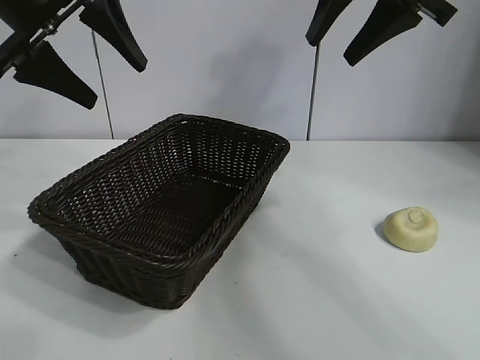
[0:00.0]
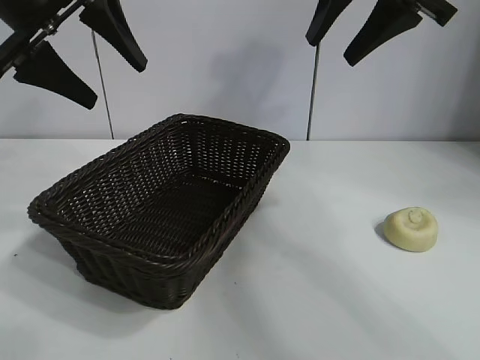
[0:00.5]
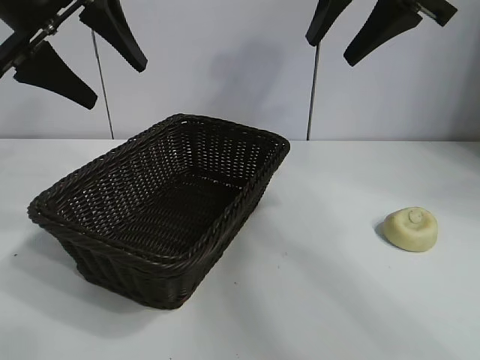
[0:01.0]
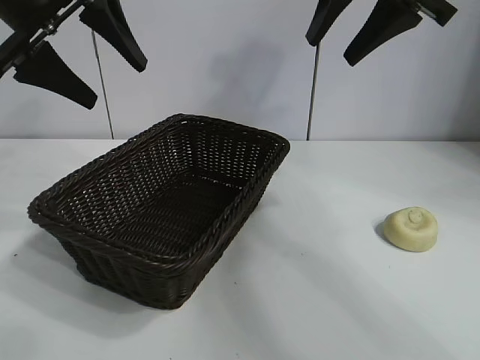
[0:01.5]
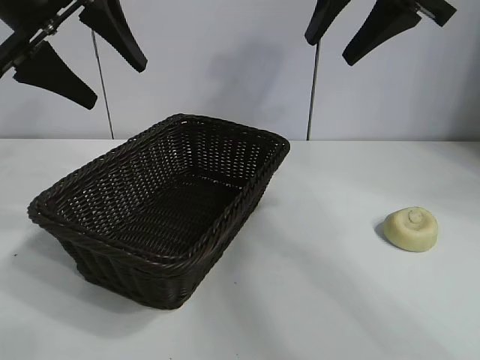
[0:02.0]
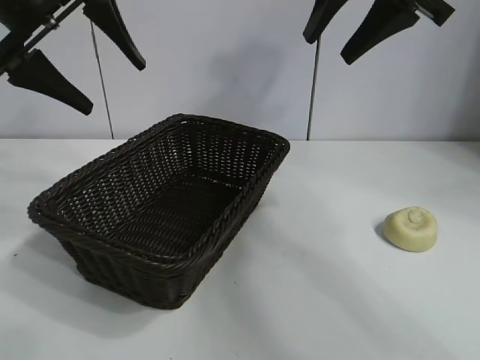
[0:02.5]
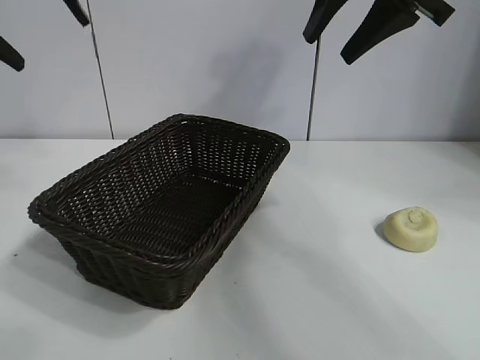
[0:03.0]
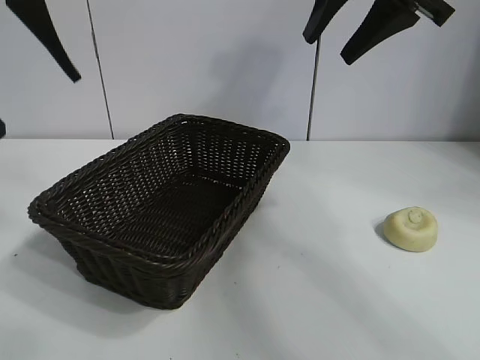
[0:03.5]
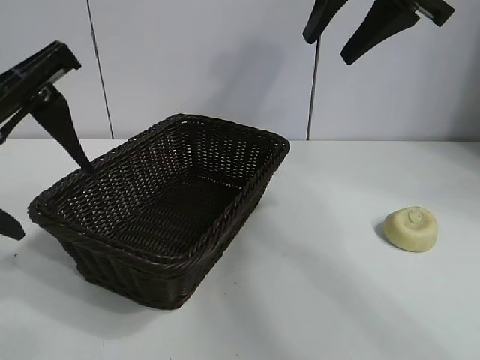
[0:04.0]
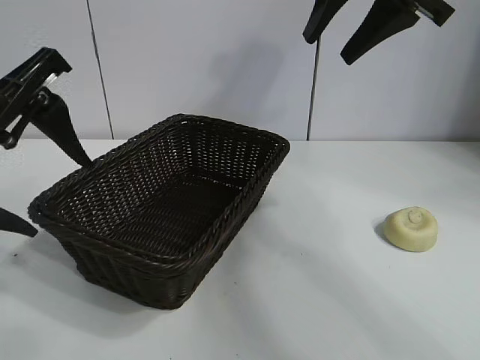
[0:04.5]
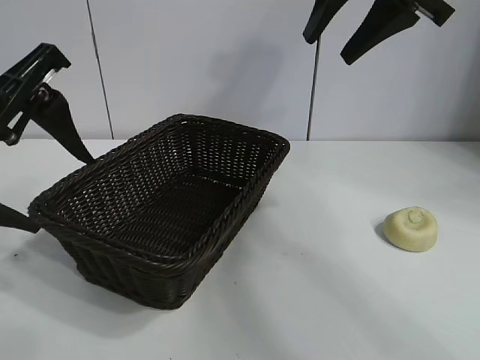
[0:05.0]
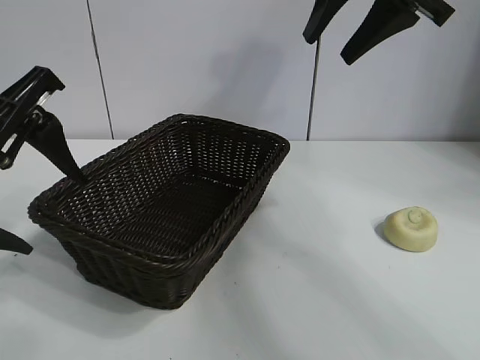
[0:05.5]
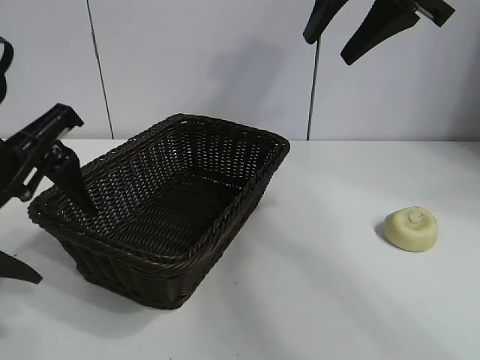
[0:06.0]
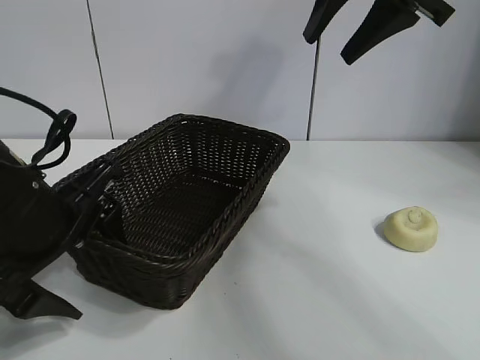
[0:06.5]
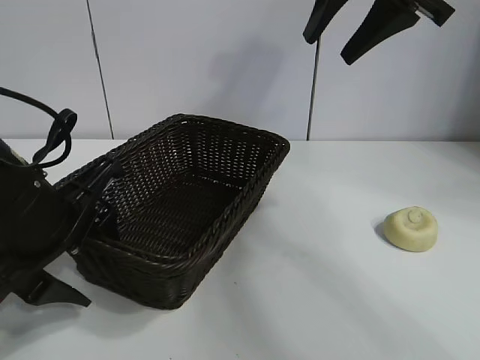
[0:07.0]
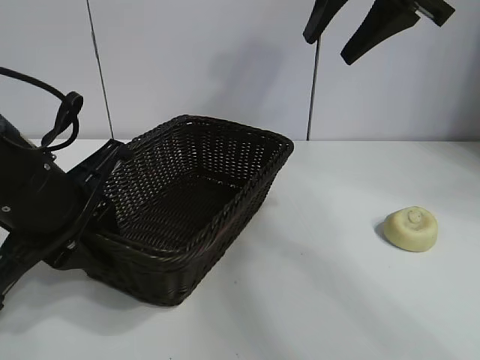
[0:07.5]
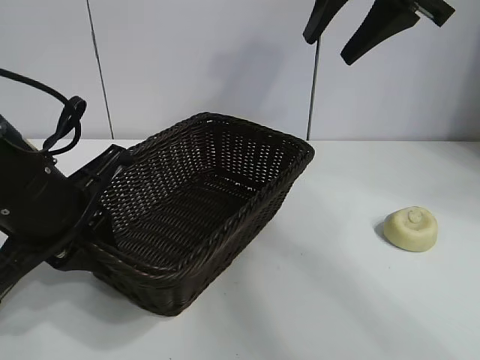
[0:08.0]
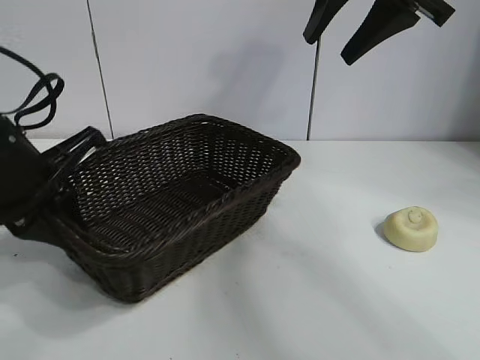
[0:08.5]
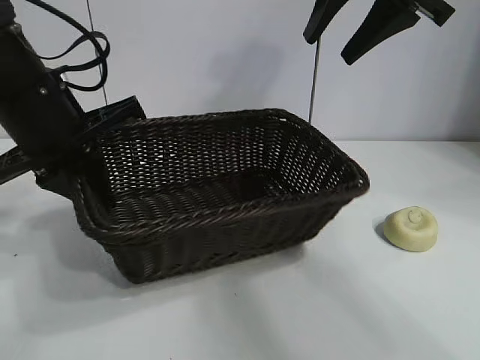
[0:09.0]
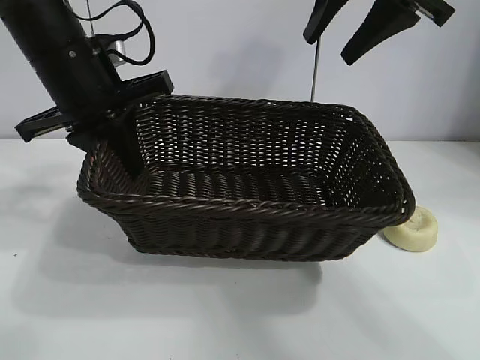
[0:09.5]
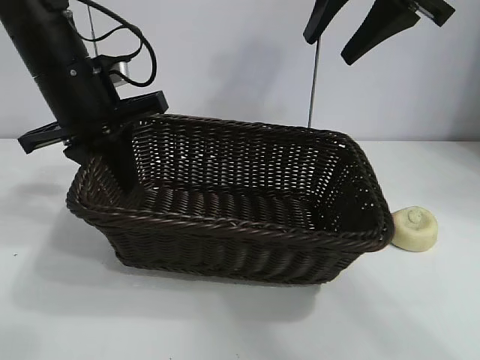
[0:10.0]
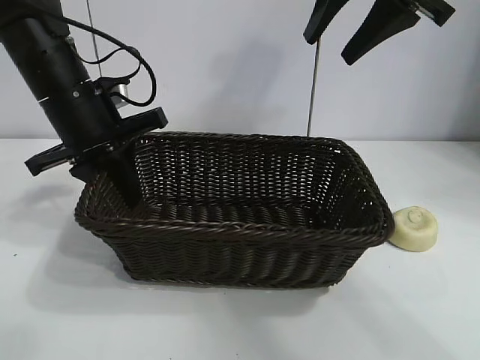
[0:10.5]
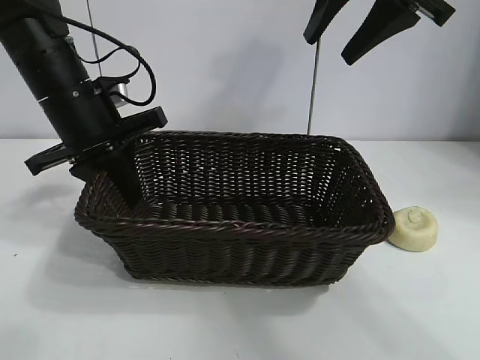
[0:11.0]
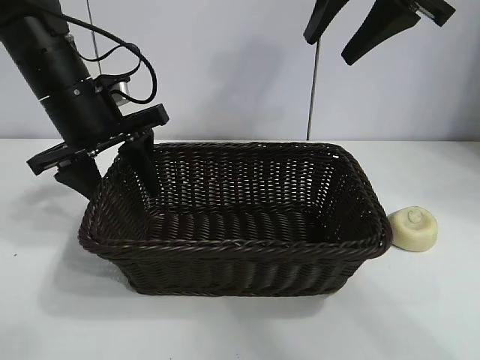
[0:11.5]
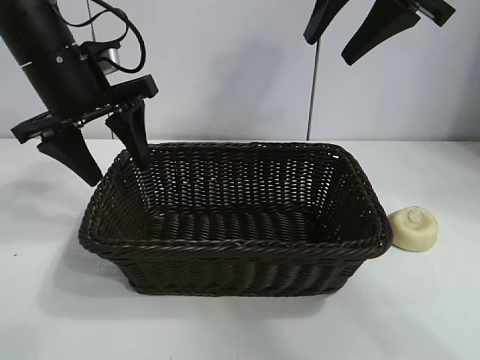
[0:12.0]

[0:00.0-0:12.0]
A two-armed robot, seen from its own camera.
Task of the whole recording: pick up the egg yolk pastry and put it into the basket.
Step, 0:02.0 to 0:07.0: Grasp the basket with left gripper.
Step, 0:08.0 to 0:11.5: Place the basket in the center of view with left gripper.

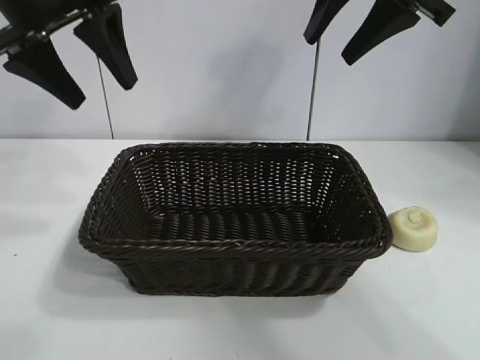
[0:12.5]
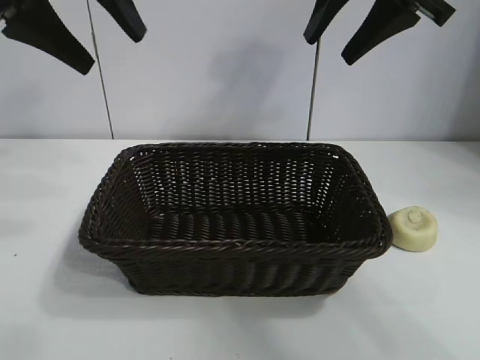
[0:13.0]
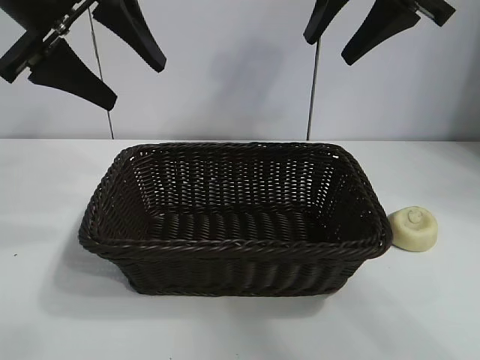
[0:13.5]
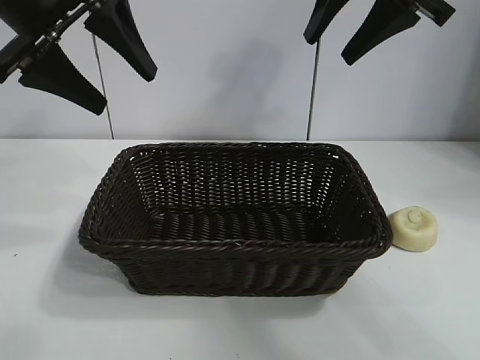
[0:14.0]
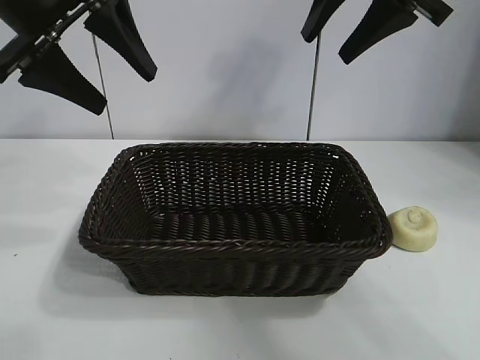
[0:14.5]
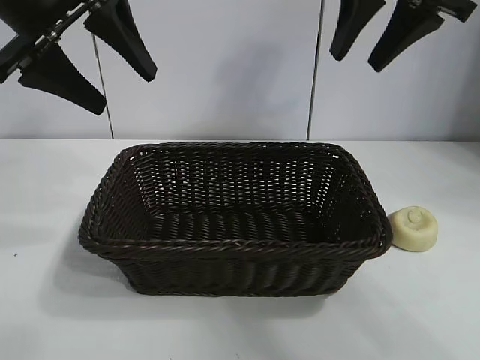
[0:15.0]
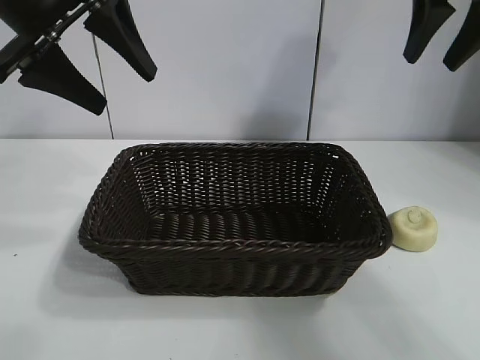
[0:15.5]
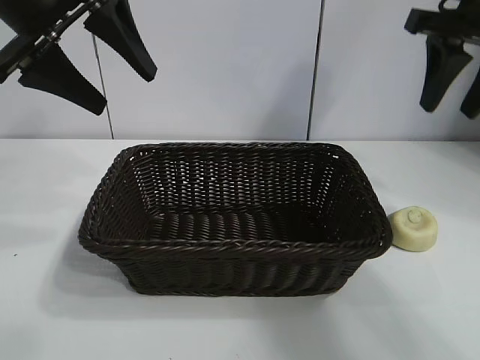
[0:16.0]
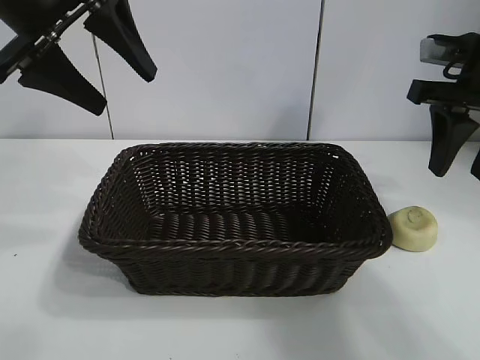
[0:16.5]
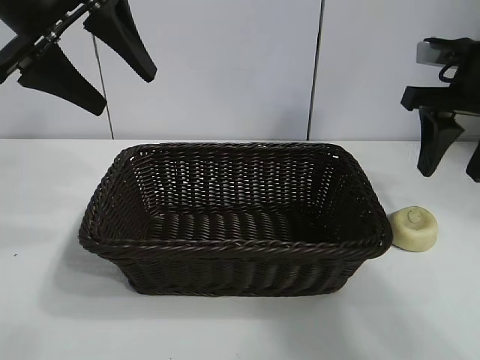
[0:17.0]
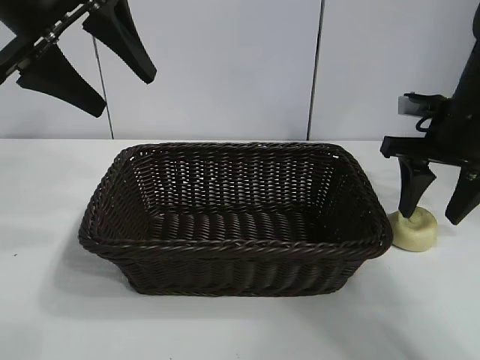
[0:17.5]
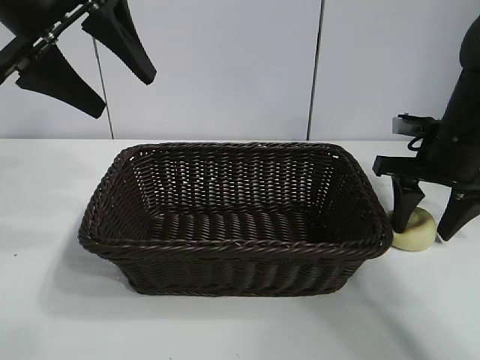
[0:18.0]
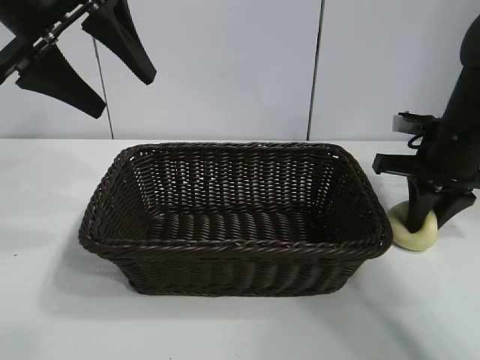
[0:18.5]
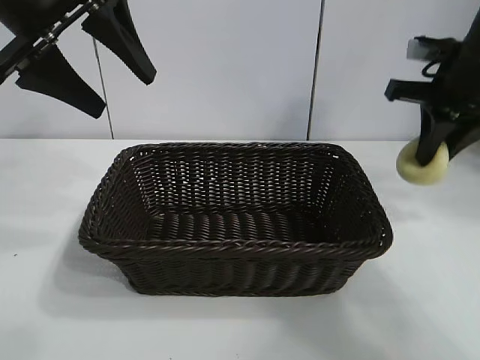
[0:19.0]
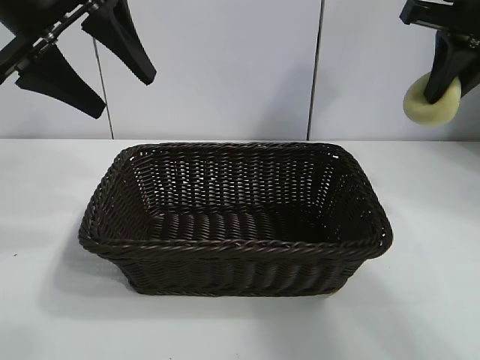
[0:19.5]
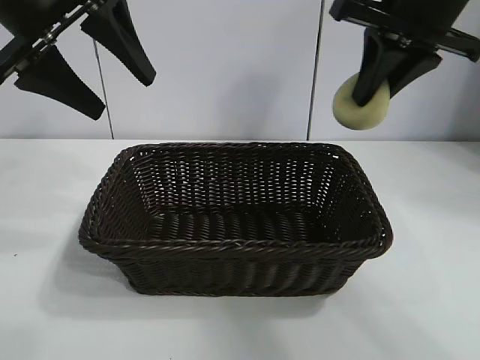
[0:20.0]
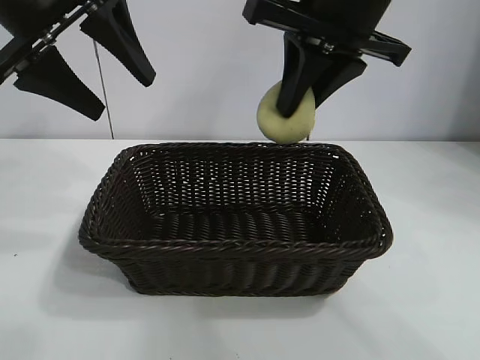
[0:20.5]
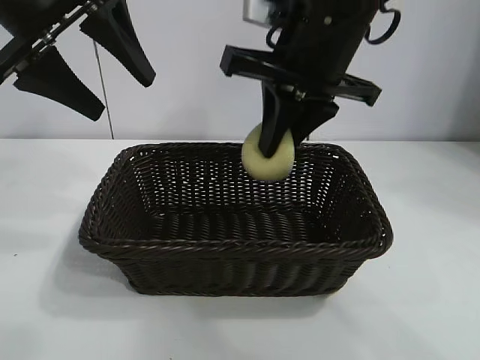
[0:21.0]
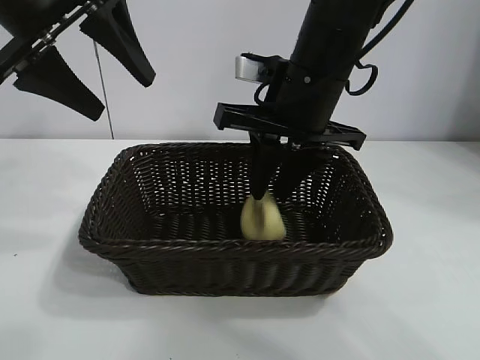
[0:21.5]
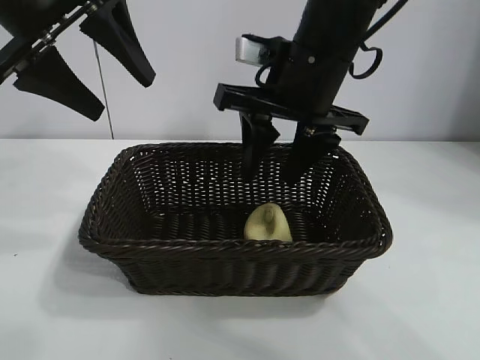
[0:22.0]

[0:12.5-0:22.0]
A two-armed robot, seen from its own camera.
Task of the whole recording: pick up the egg yolk pastry and put it into the basket.
Step, 0:12.5 to 0:18.5: Grasp egg yolk pastry with right gripper.
Step, 0:19.0 to 0:21.5: Place the egg yolk pastry in the basket with right gripper.
